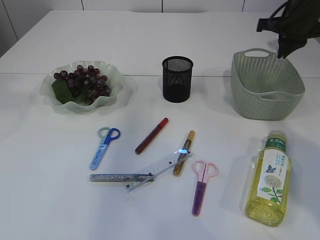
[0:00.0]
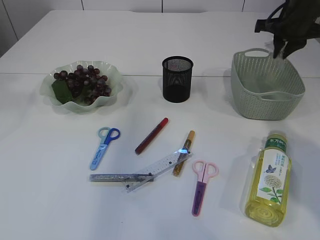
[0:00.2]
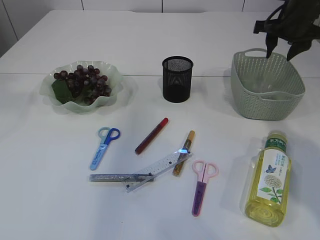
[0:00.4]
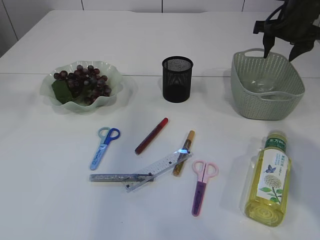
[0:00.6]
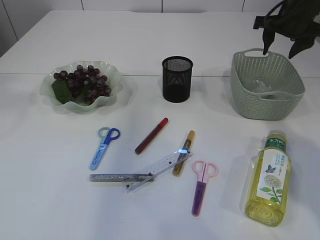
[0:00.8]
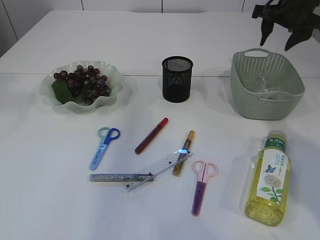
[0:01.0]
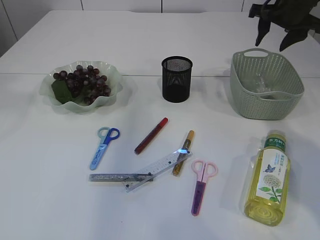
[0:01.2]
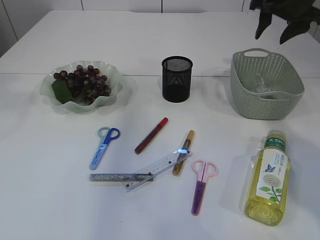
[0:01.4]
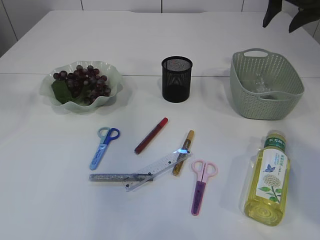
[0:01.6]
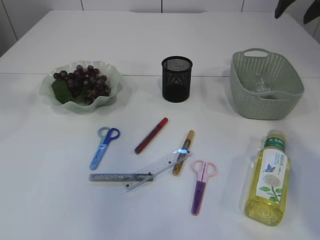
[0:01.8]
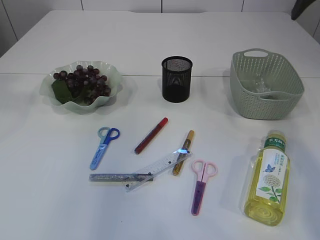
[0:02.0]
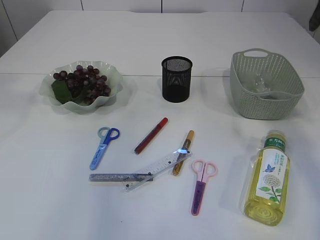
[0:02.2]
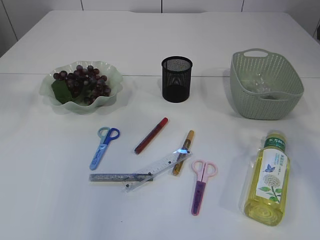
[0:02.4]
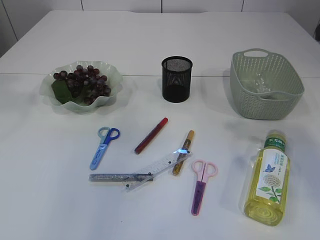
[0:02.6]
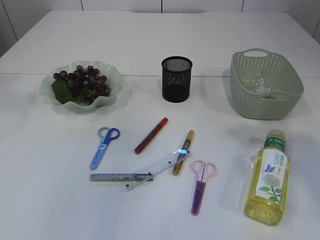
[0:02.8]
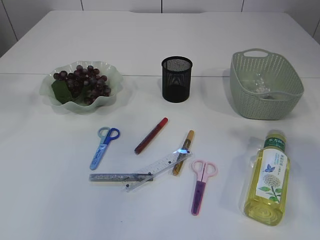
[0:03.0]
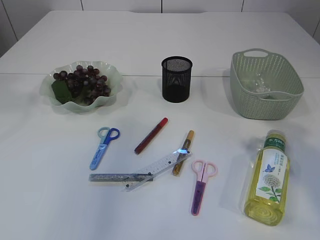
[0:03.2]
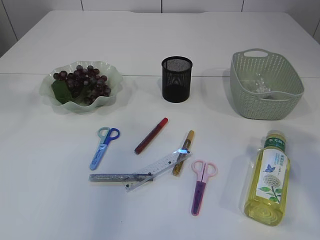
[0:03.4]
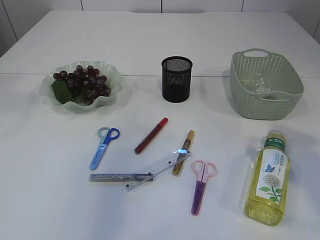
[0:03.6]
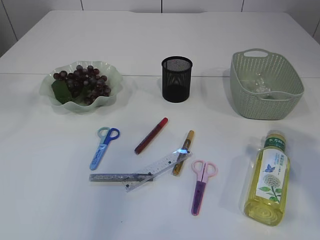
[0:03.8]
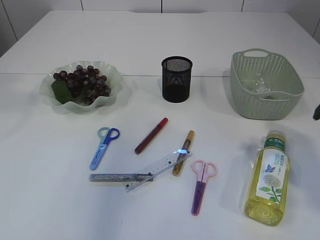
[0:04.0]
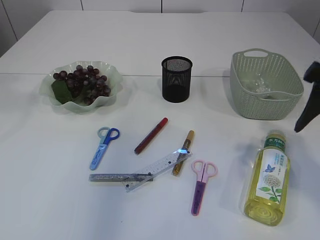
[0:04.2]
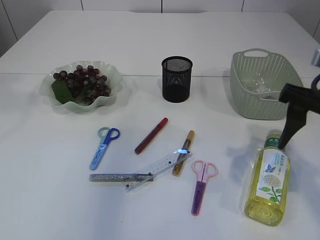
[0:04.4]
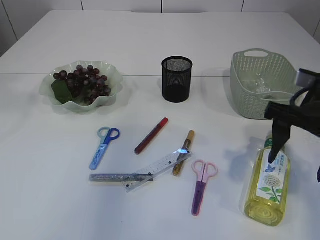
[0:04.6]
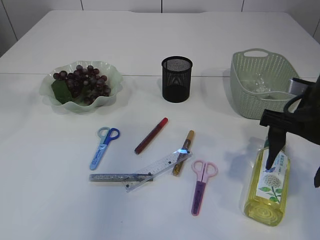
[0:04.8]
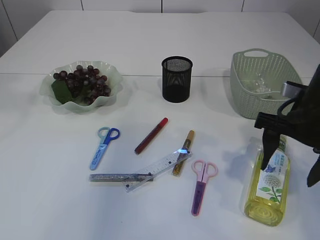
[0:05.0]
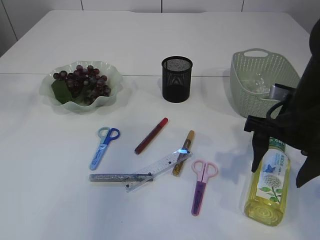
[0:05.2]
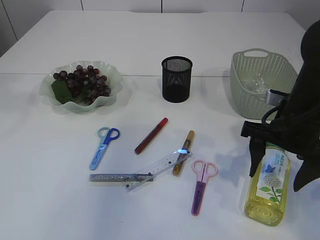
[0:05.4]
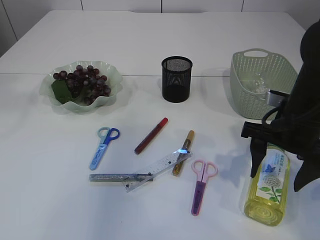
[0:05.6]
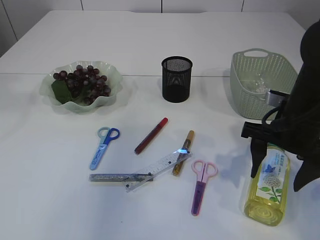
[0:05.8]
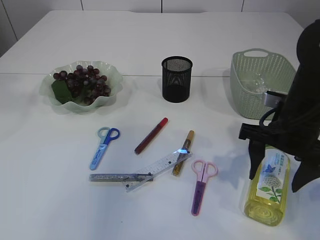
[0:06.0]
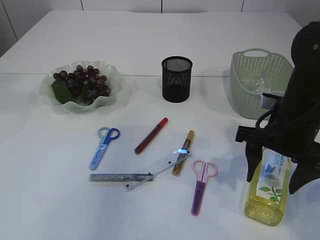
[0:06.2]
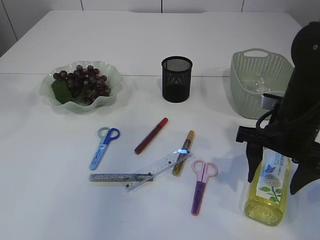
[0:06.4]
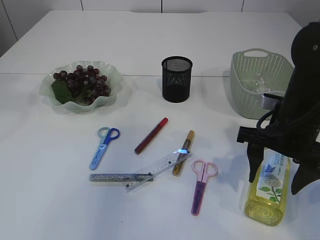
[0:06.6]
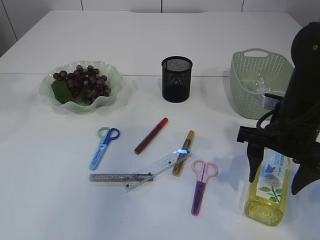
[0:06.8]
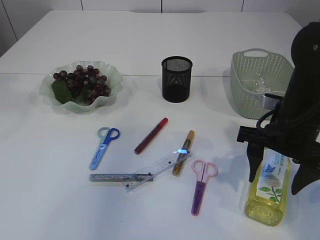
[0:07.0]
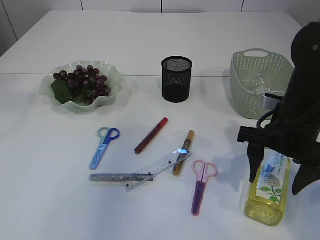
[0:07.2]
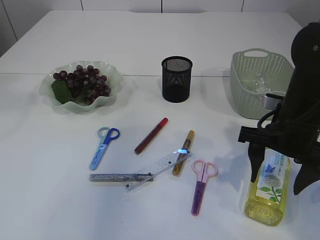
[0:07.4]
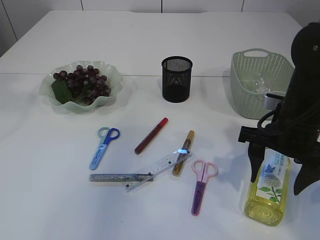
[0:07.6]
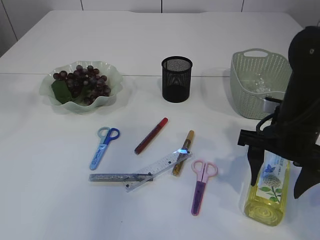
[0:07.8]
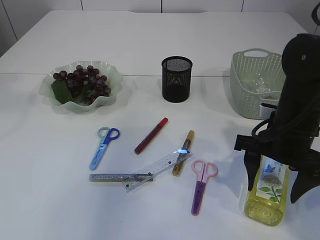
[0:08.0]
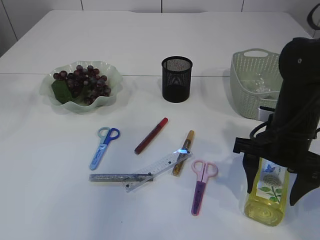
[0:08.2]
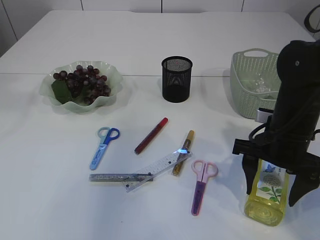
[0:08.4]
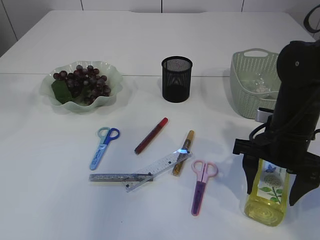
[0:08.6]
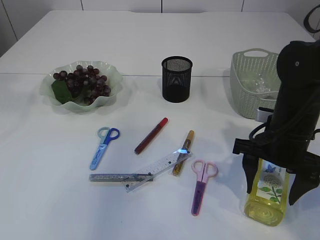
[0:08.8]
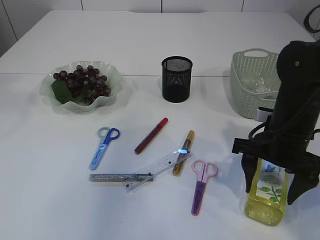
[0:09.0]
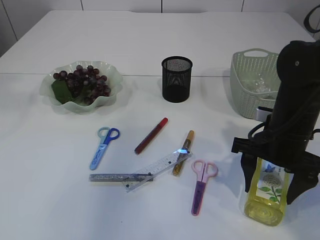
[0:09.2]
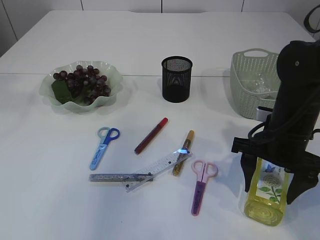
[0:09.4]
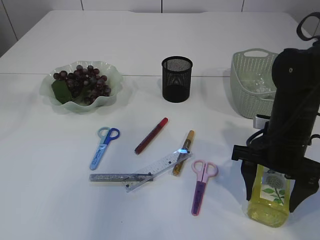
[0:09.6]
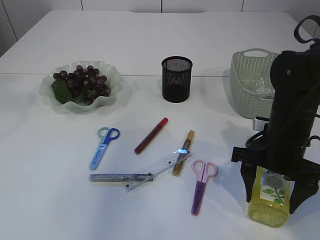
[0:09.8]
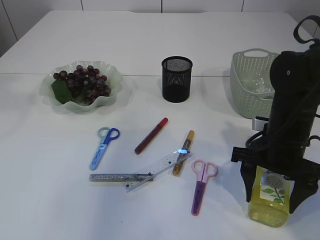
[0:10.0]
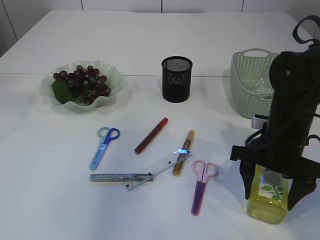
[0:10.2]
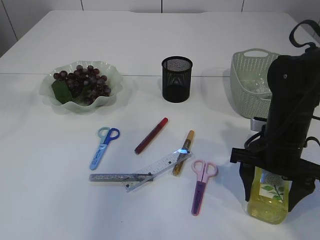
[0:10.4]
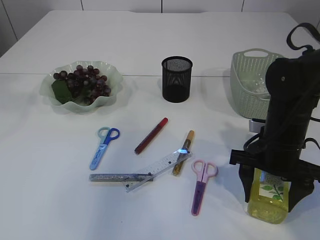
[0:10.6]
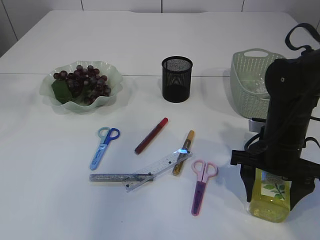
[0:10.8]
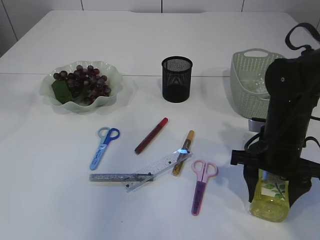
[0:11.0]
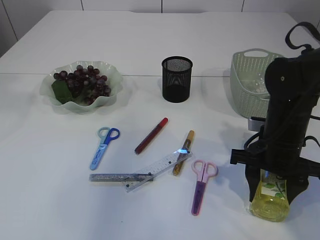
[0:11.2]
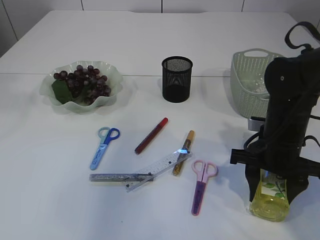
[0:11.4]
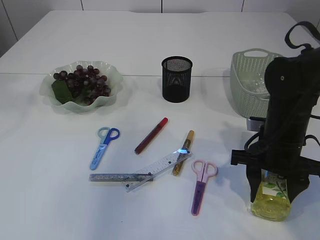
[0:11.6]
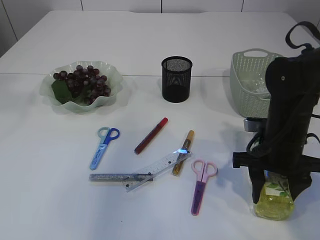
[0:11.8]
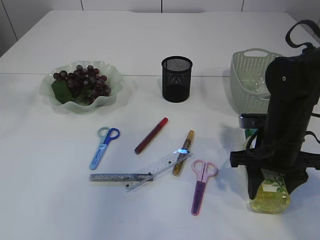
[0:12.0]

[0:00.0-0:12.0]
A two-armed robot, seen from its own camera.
0:00.0 to 0:01.6: The right gripper travels upward by approximately 5 cm, and opens up.
0:01.6 to 0:03.0: The right gripper heads backward, covering about 25 cm.
0:03.0 to 0:04.4: The right gripper goes about 15 cm downward.
0:04.4 to 0:06.0: The right gripper heads downward, covering some 10 cm.
0:06.0 to 0:07.6: Neither gripper changes place.
0:07.6 to 0:12.0: The grippers make only small movements.

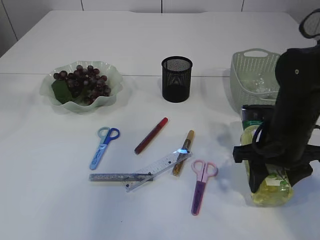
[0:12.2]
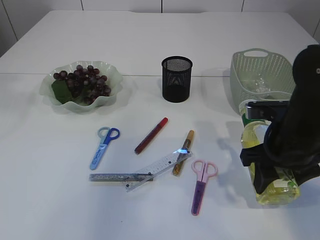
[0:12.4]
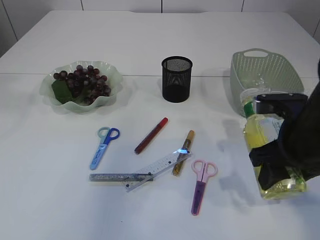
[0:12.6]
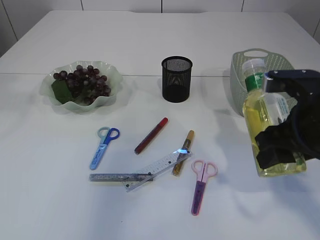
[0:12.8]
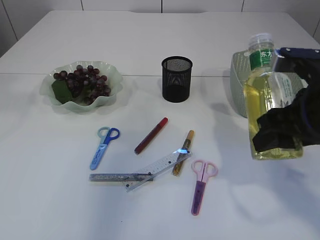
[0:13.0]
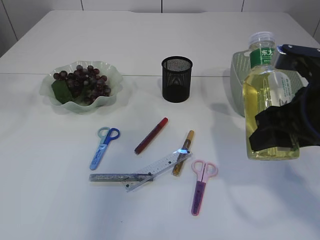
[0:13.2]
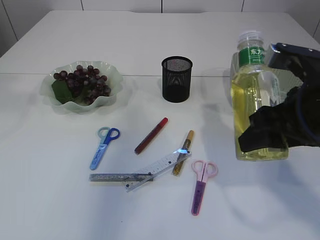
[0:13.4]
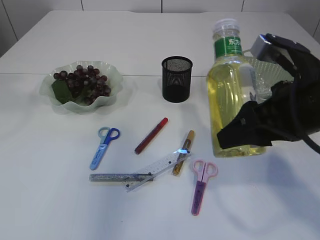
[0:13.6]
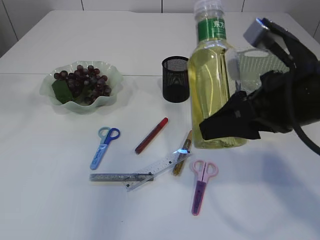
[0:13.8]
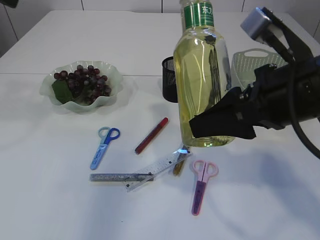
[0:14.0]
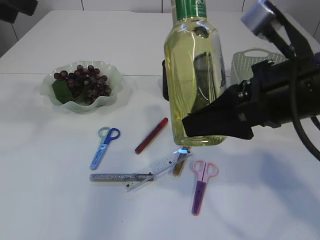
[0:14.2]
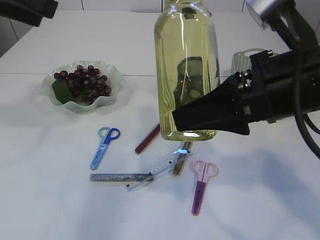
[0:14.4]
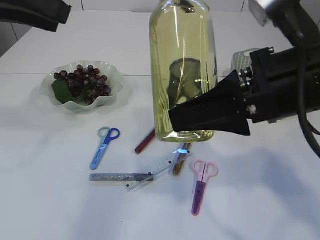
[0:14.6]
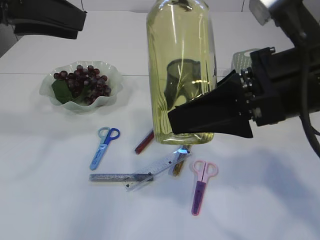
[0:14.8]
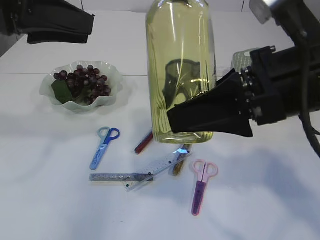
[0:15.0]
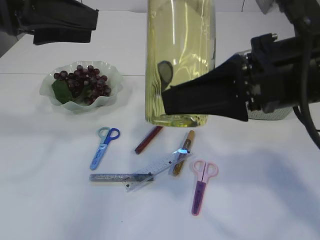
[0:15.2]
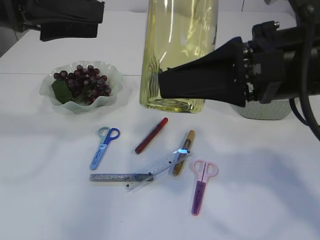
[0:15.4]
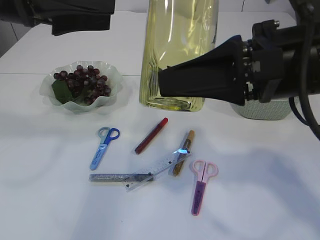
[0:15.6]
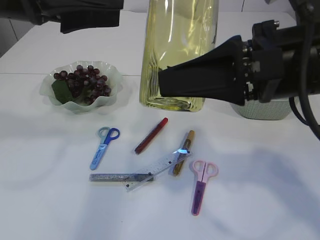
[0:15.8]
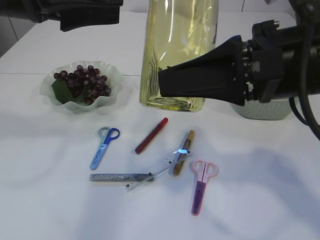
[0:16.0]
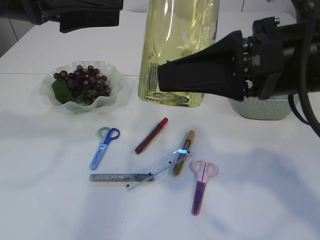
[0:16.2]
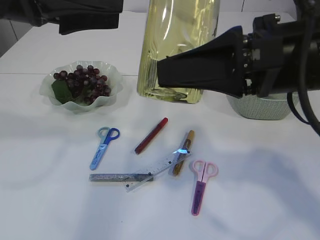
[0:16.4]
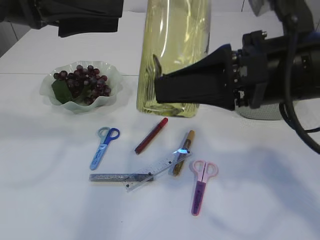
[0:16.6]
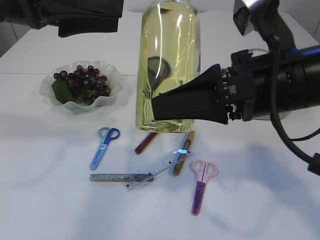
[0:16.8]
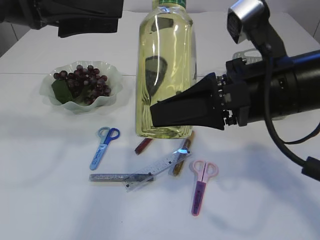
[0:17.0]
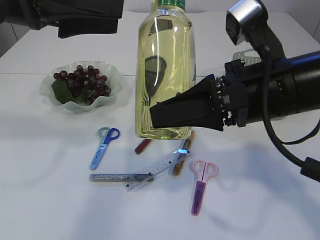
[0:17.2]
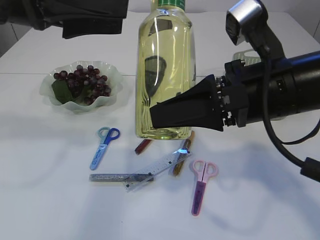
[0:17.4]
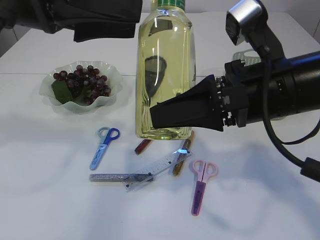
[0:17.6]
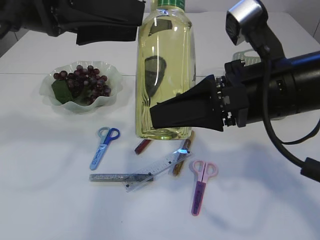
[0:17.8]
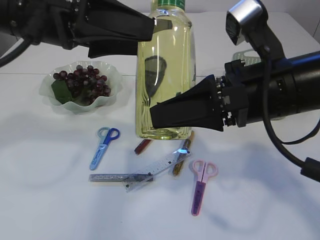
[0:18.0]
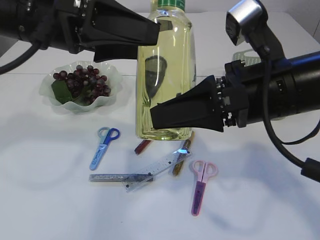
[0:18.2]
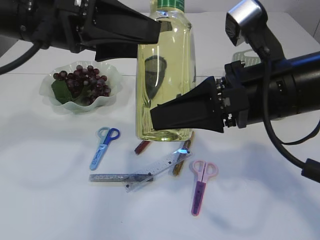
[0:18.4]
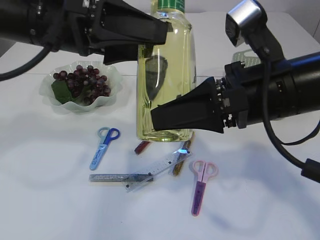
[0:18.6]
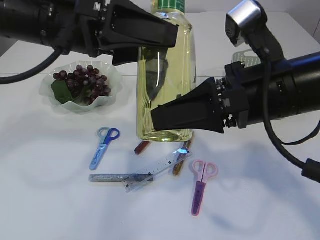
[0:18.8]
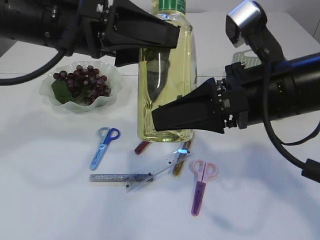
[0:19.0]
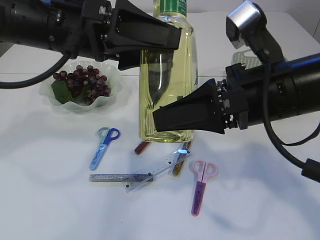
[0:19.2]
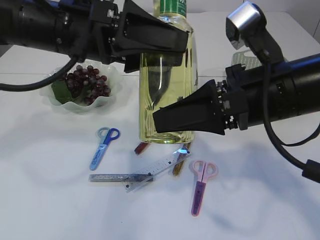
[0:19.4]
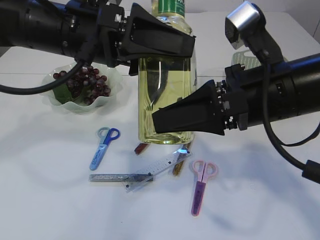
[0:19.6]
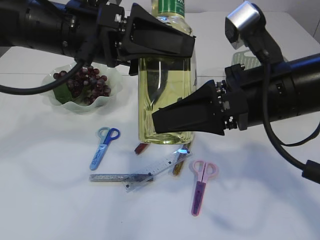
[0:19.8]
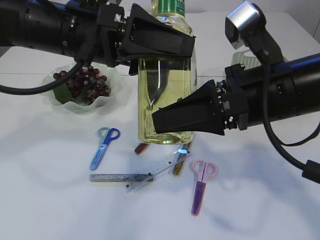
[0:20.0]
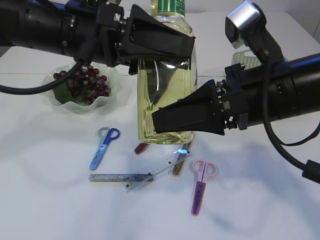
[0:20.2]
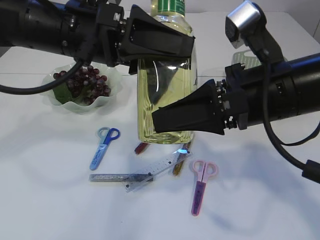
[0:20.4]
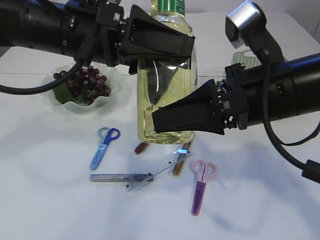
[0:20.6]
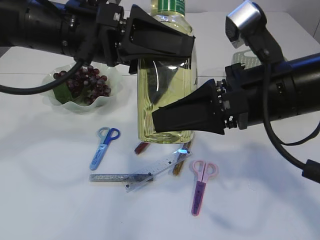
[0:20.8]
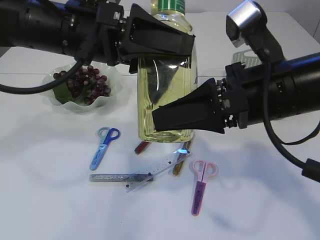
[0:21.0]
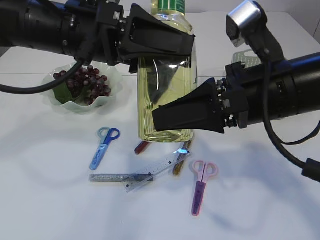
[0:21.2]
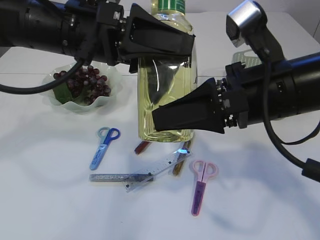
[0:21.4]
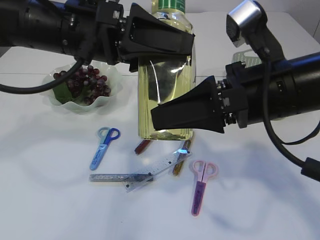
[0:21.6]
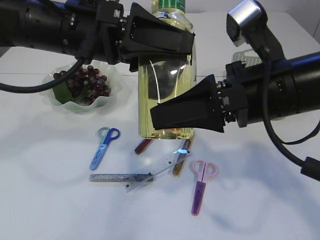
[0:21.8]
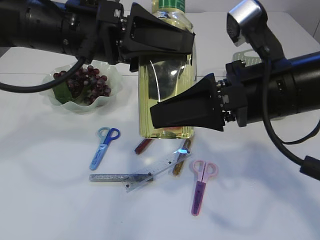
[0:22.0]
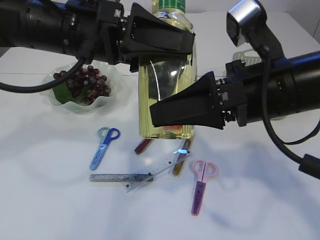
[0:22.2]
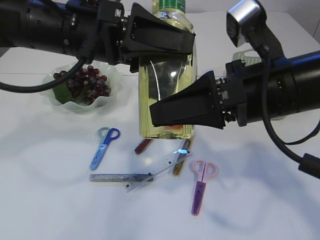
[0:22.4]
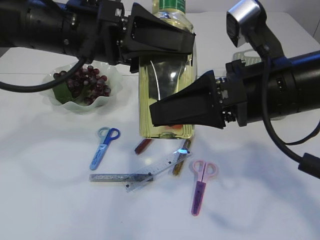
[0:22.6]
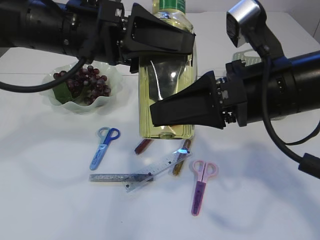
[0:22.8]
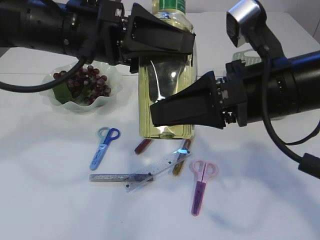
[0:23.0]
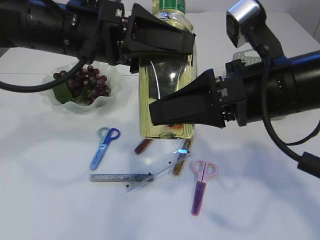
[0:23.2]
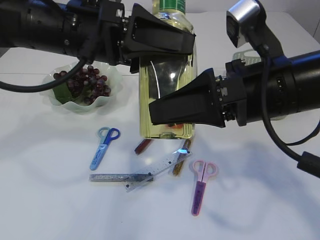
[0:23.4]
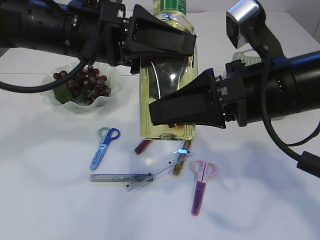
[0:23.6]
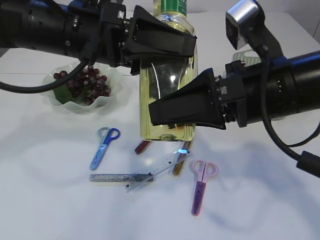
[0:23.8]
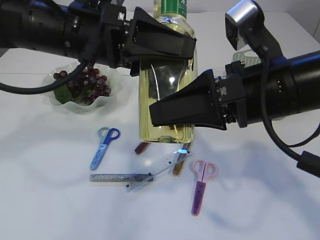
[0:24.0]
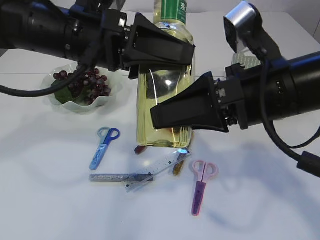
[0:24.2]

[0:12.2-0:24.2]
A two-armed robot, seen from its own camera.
0:12.2 to 0:13.8: The right gripper is displaced upward and backward by roughly 15 cm.
0:13.8 to 0:15.2: The left gripper is displaced downward and to the right by about 10 cm.
0:15.2 to 0:16.6: The grippers stay close to where they were, moving slightly.
0:18.2 to 0:19.8: The grippers move only a little.
0:19.8 to 0:22.6: The two grippers keep their place.
0:22.6 to 0:24.2: The grippers make only small movements.
